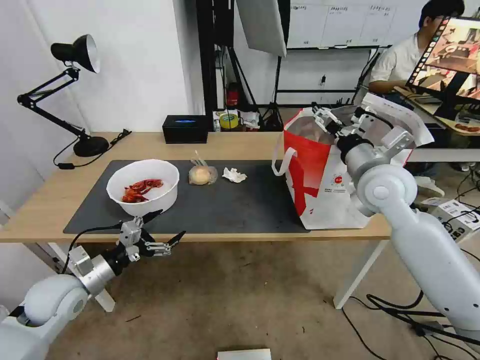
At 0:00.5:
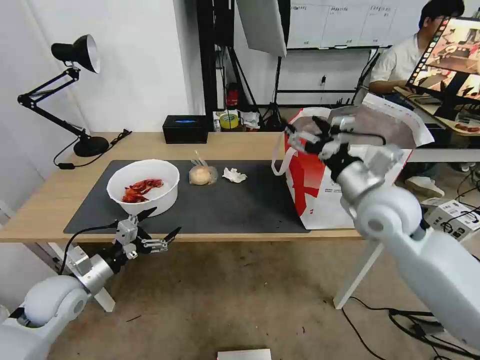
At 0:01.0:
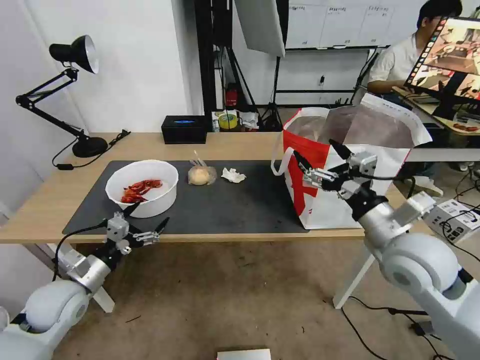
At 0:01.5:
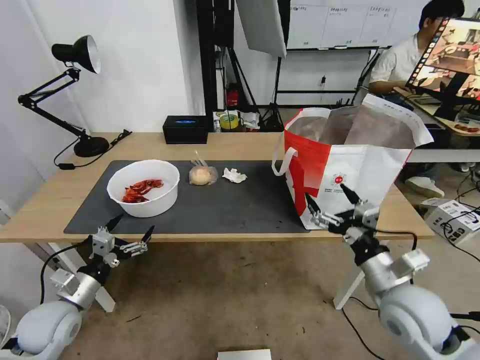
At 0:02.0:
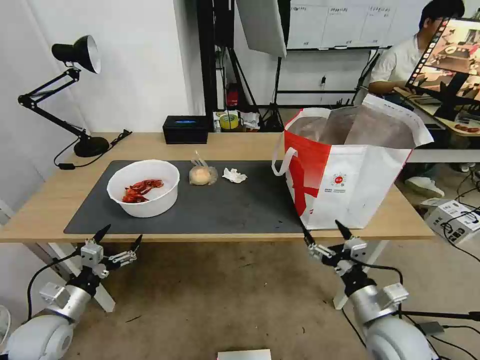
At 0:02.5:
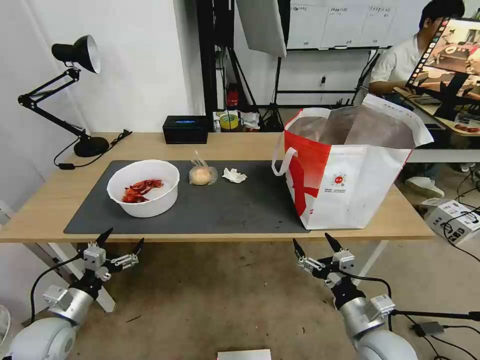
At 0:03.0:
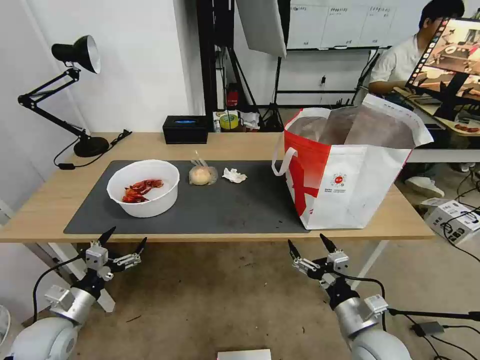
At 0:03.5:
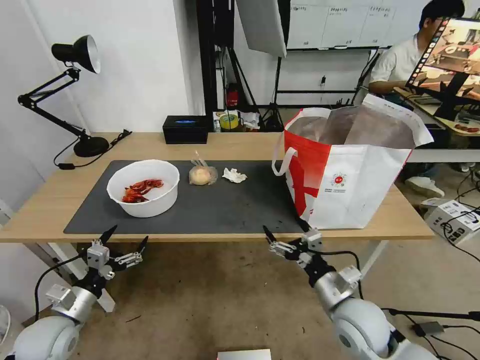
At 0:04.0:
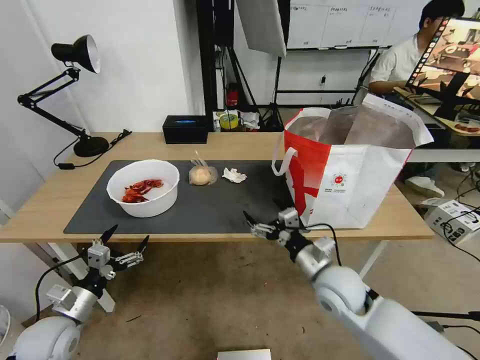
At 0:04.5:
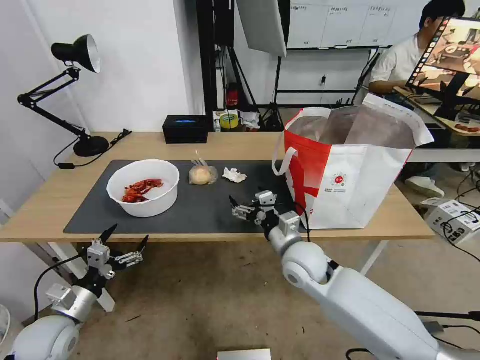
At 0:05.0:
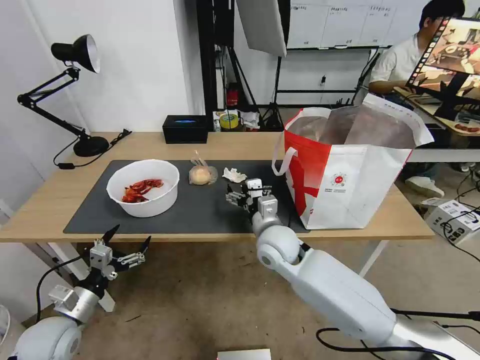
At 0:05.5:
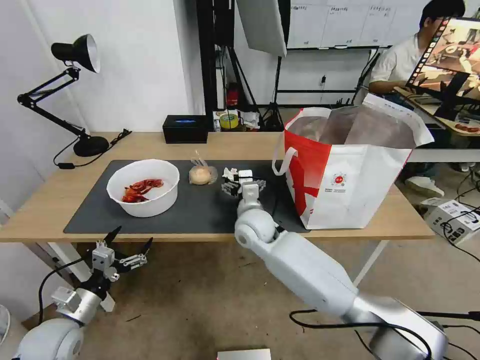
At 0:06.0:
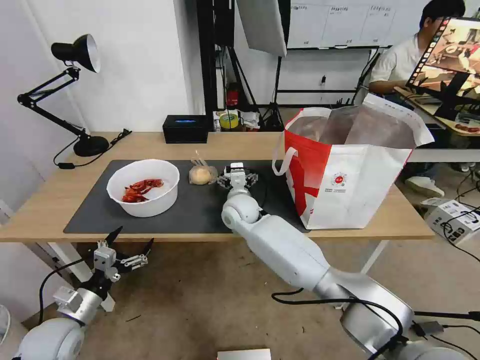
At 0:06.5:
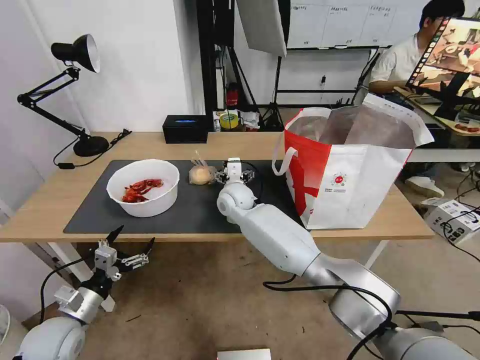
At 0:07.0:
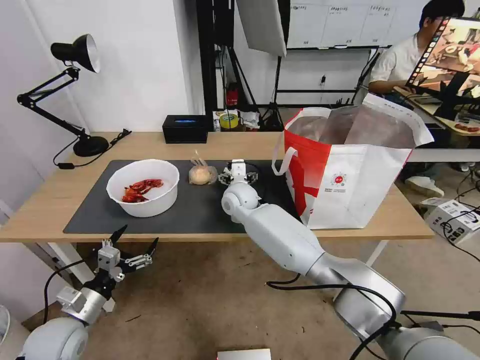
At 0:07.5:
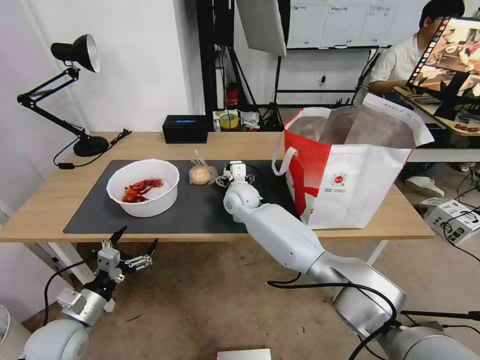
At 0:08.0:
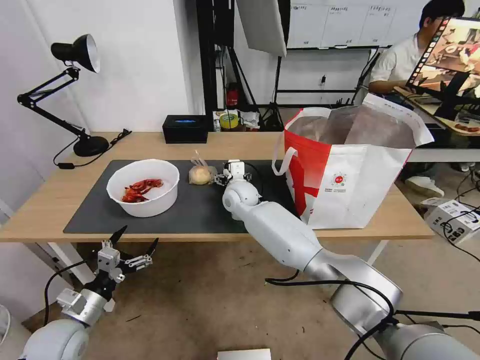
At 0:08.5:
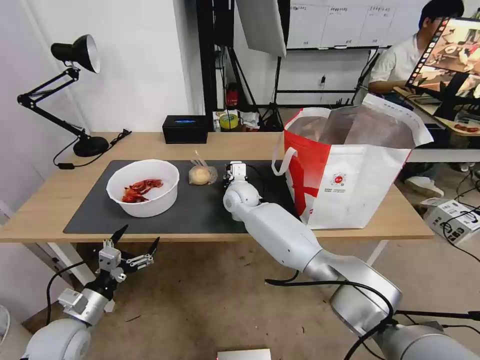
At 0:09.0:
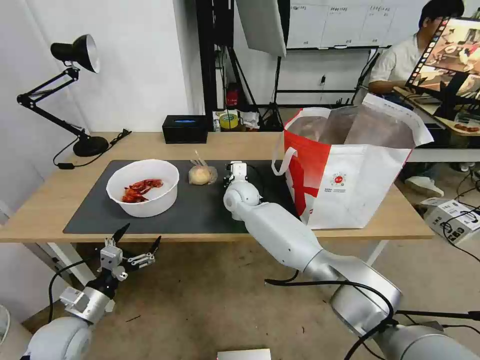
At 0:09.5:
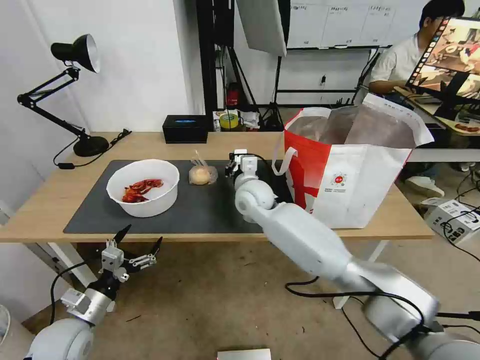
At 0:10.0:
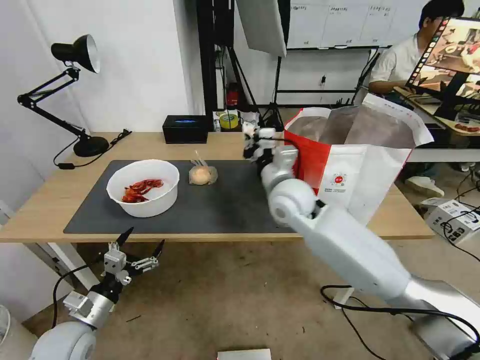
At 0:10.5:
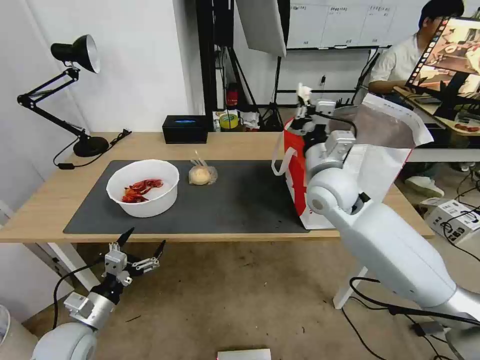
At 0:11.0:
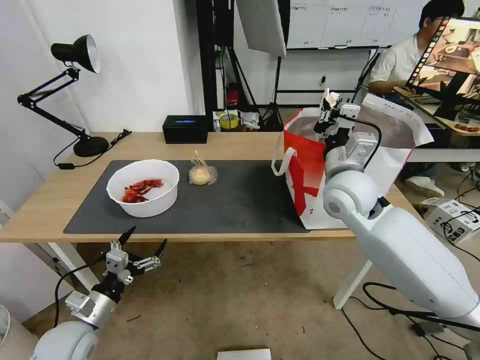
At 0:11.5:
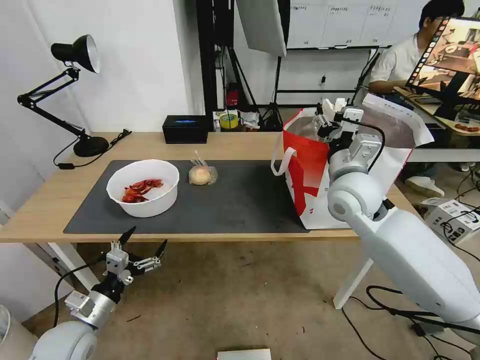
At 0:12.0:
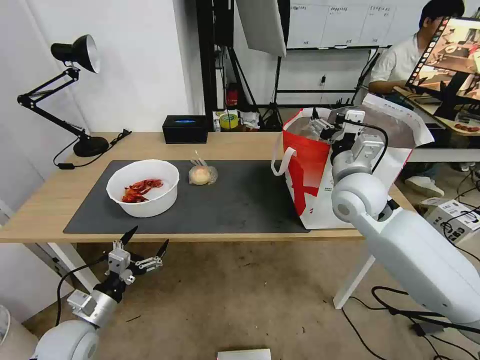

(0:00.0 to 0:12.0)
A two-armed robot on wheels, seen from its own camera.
Task of the whole recording: Pick up the trash from the table and place it into the takeout bag.
0:00.0 - 0:02.0: The left gripper moves downward and backward, about 10 cm. The right gripper heads backward and downward, covering some 30 cm.
0:02.0 - 0:04.0: The right gripper travels forward and to the left by some 15 cm.
0:04.0 - 0:06.0: The right gripper heads to the left and forward, covering approximately 30 cm.
0:06.0 - 0:08.0: The grippers move only a little.
0:08.0 - 0:10.0: The right gripper is displaced to the right, backward and upward by about 20 cm, and closes up.
0:10.0 - 0:12.0: The right gripper is displaced to the right by some 10 cm, and opens up.

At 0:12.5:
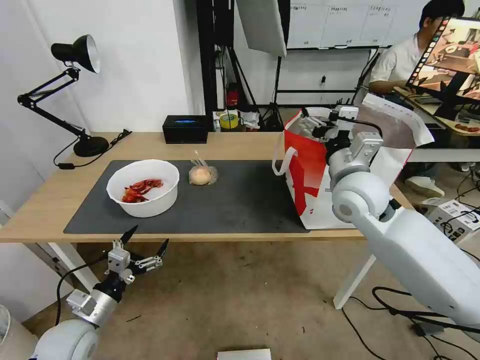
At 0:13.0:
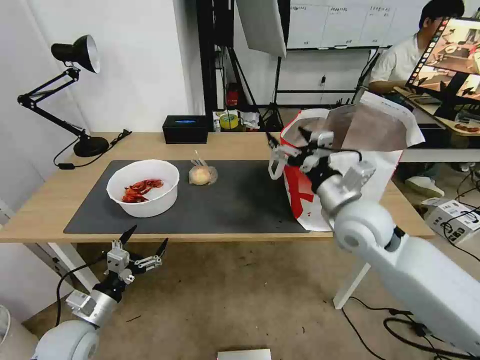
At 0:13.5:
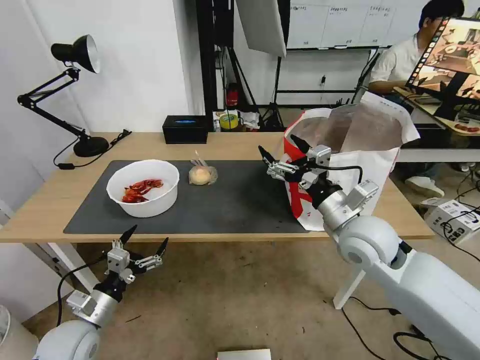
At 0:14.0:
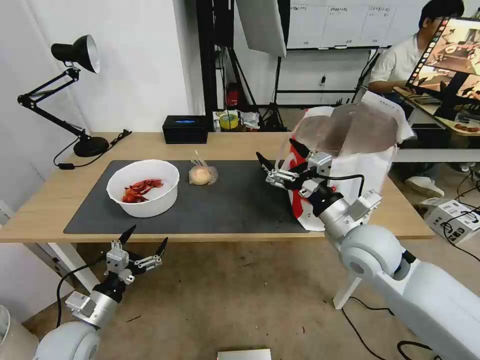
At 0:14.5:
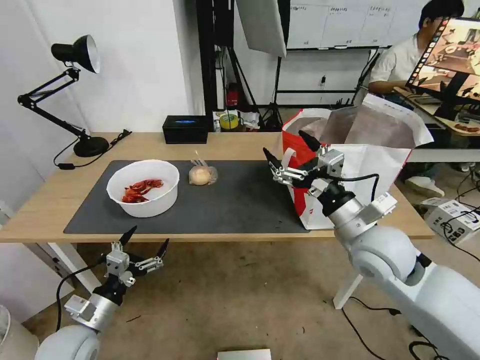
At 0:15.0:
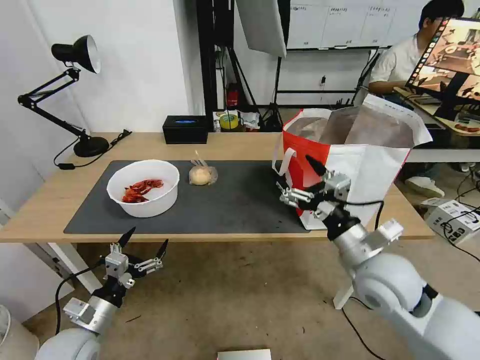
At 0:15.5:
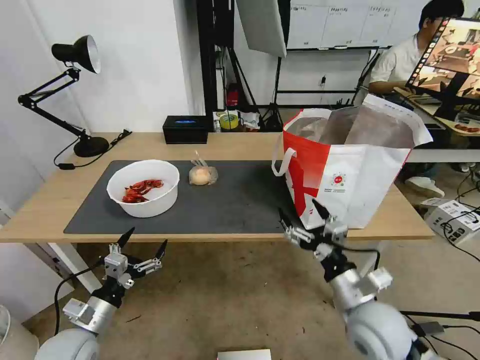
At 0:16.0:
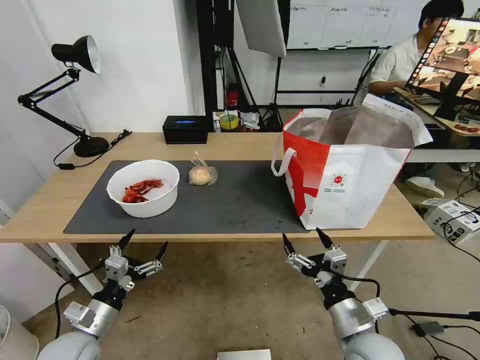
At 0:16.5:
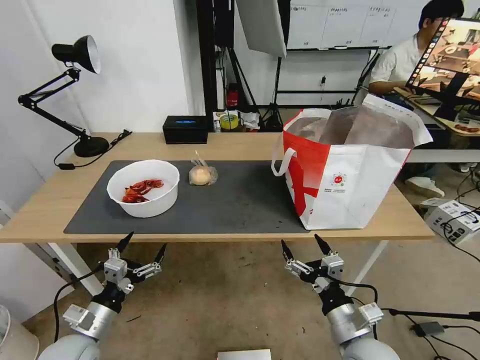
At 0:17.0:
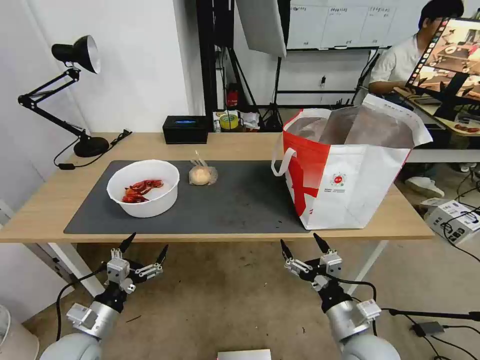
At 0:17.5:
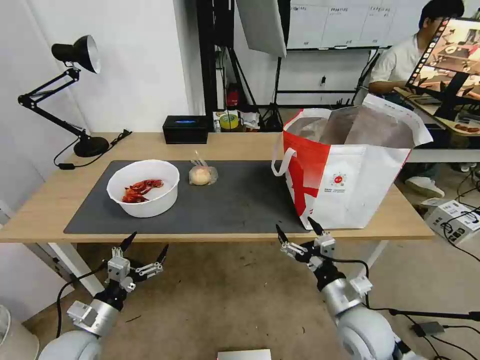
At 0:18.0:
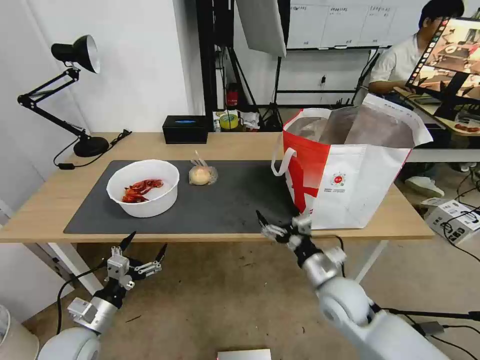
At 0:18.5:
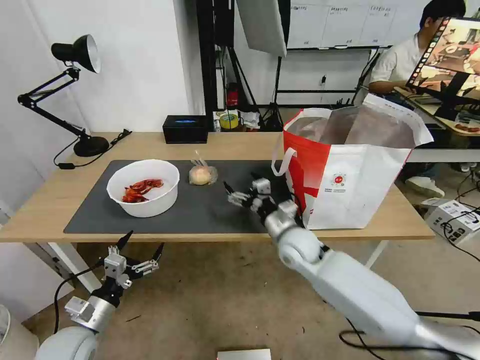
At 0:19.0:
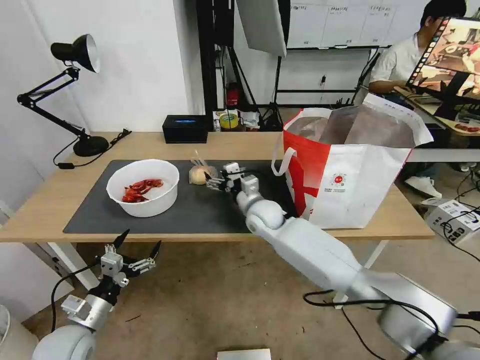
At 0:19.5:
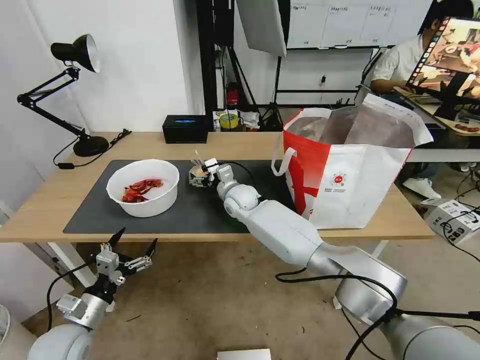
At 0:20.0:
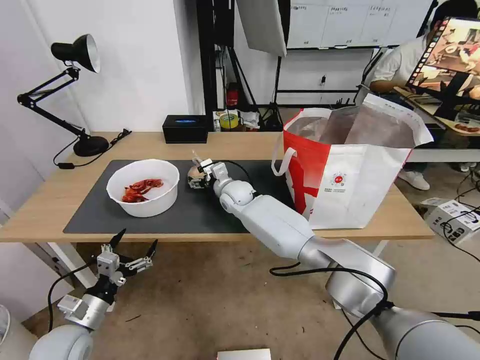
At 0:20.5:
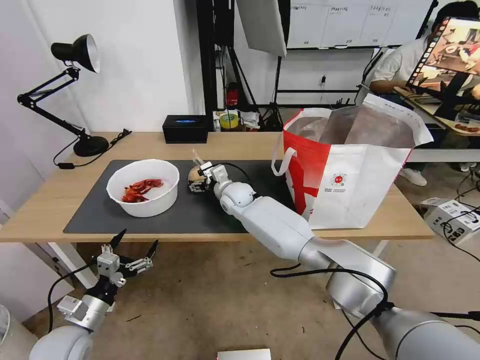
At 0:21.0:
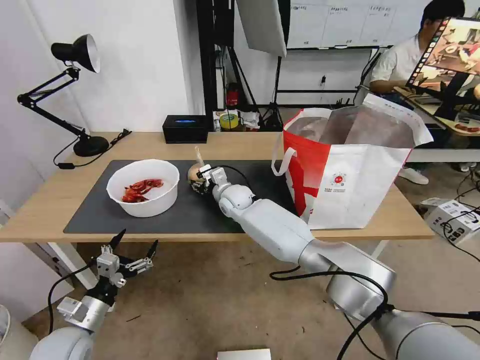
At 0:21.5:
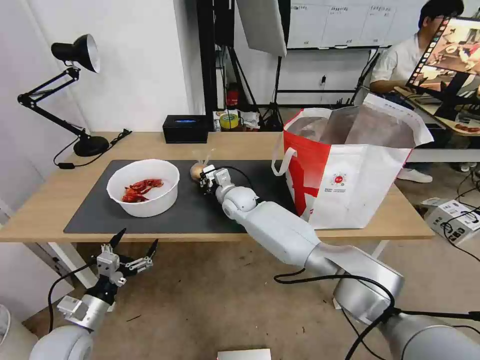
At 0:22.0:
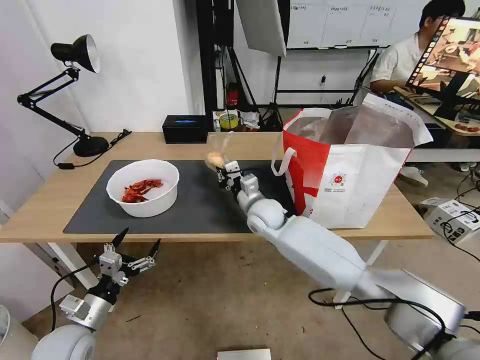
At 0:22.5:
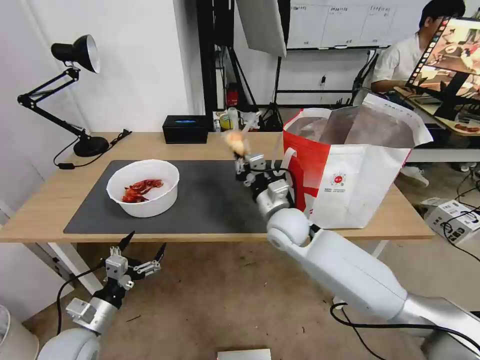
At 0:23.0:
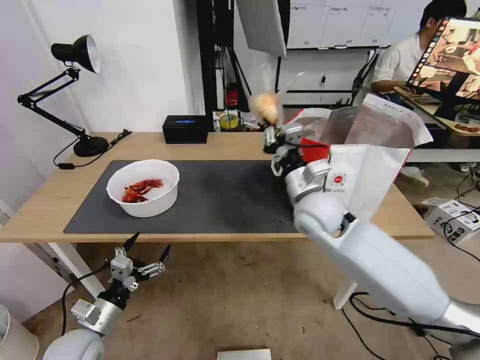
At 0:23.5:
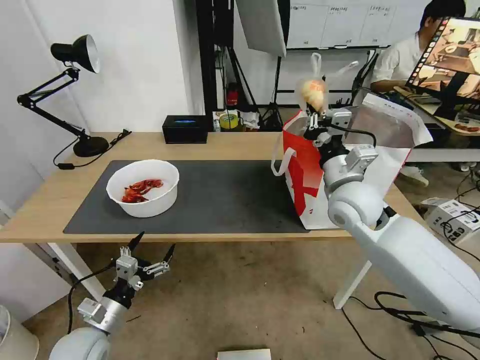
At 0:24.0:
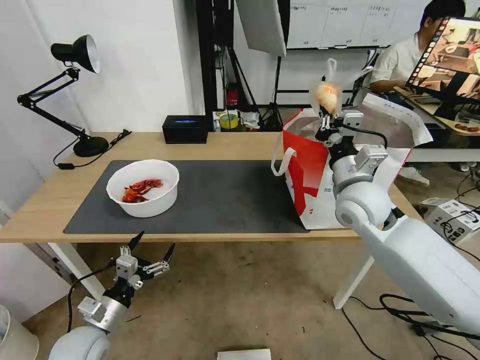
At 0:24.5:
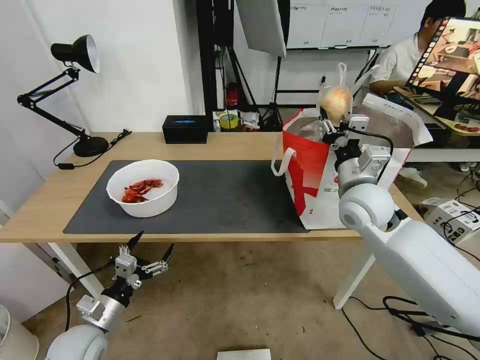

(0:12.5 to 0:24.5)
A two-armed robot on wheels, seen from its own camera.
Task of the whole recording: Pick up the trash from the table and place it into the takeout bag.
0:12.5 - 0:14.5: The right gripper is displaced backward by roughly 10 cm.
0:14.5 - 0:16.5: The right gripper goes some 20 cm downward and backward.
0:16.5 - 0:18.5: The right gripper goes roughly 25 cm forward.
0:18.5 - 0:20.5: The right gripper is displaced forward and to the left by approximately 20 cm.
0:20.5 - 0:22.5: The right gripper travels backward and to the right by some 20 cm, and closes.
0:22.5 - 0:24.5: The right gripper shifts approximately 15 cm to the right and upward, and opens.

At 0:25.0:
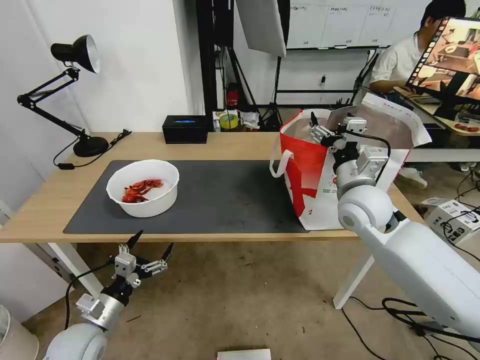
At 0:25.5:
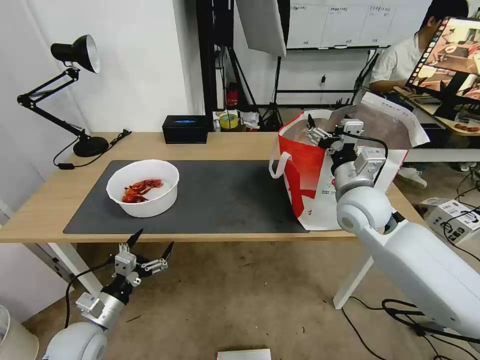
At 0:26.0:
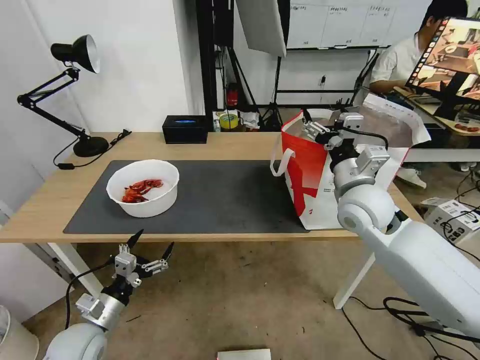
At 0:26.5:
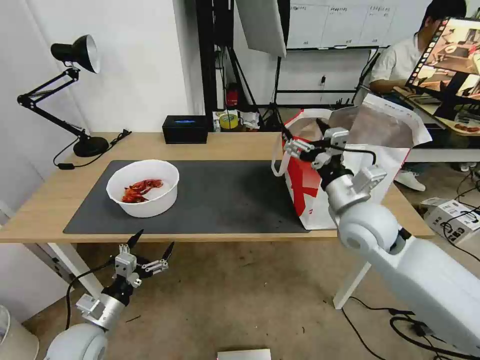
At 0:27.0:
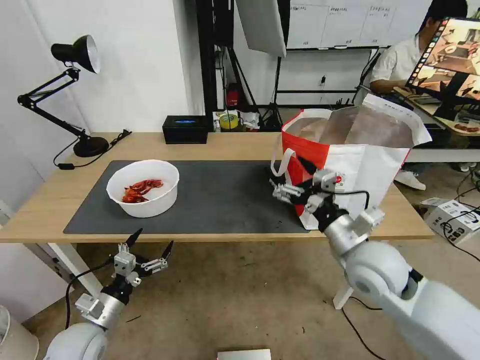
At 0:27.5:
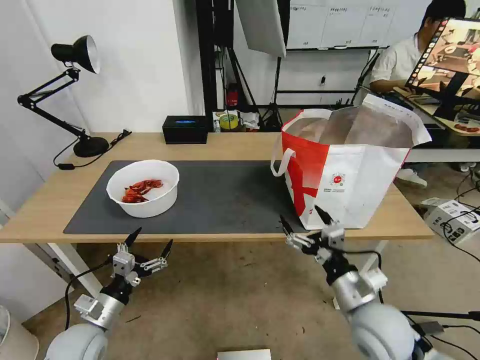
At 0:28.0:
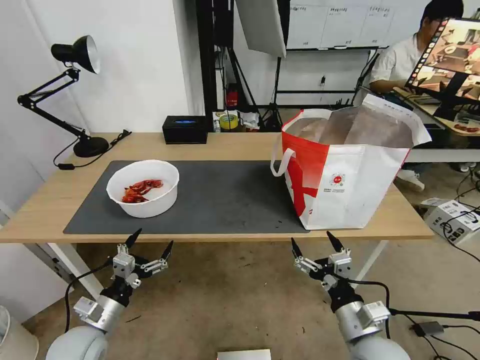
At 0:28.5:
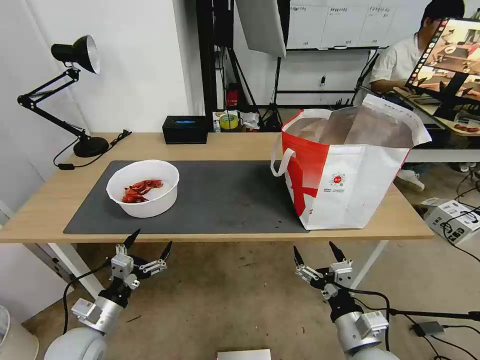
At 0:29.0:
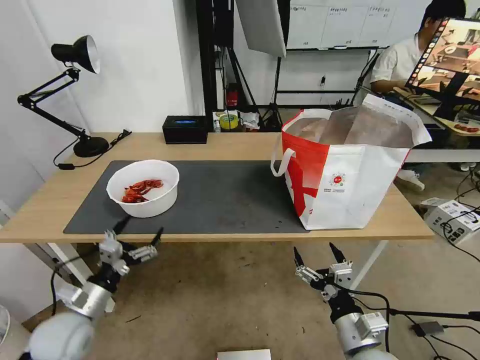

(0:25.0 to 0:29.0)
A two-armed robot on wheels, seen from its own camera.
Task of the whole recording: Pick up the trash from the table and place it into the takeout bag.
0:25.0 - 0:27.0: The right gripper heads backward, covering about 10 cm.
0:27.0 - 0:29.0: The left gripper shifts by some 5 cm, while the right gripper travels backward and downward by some 20 cm.
